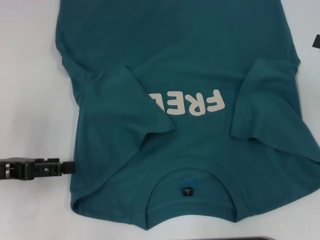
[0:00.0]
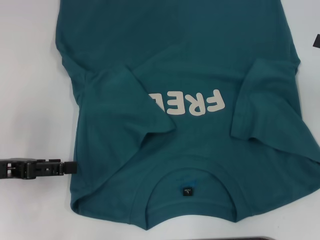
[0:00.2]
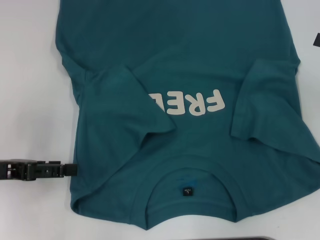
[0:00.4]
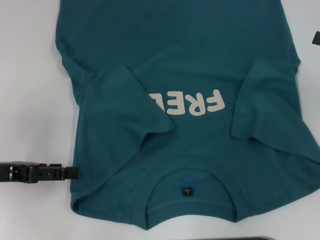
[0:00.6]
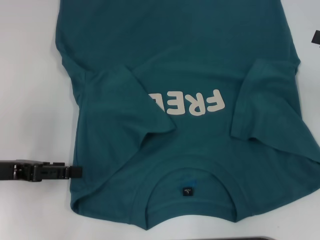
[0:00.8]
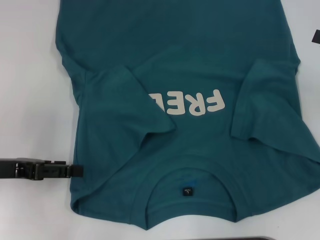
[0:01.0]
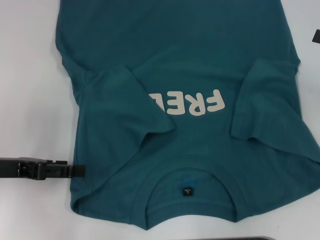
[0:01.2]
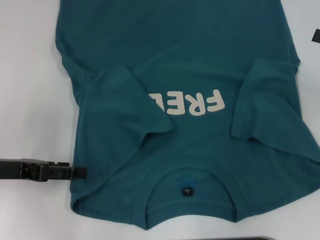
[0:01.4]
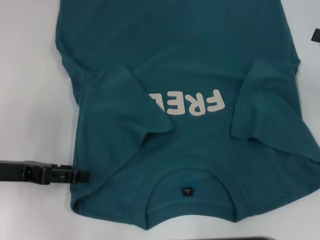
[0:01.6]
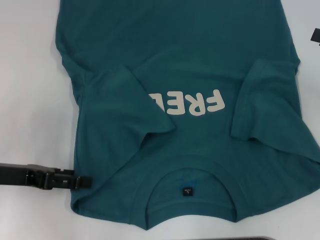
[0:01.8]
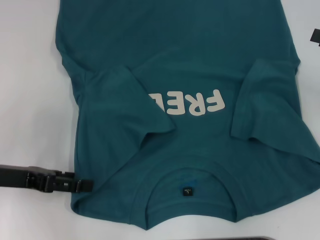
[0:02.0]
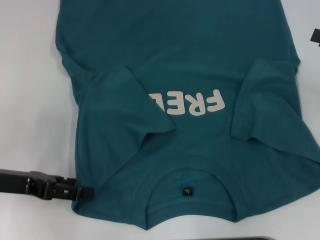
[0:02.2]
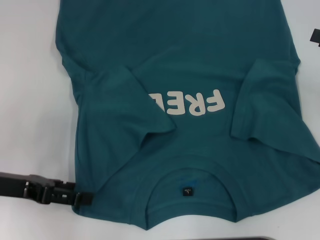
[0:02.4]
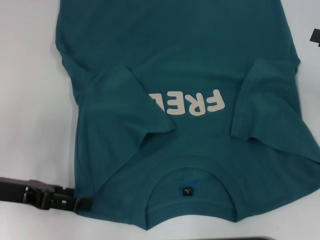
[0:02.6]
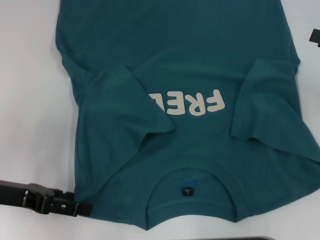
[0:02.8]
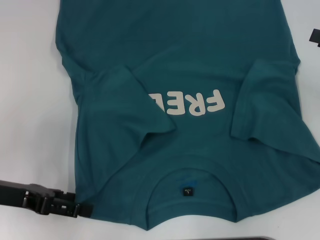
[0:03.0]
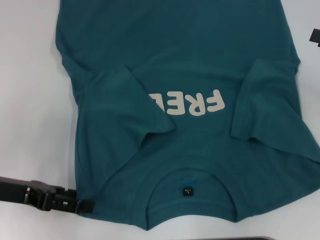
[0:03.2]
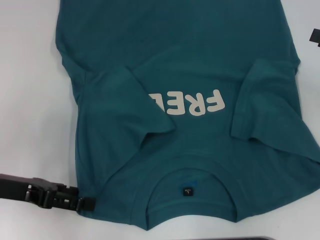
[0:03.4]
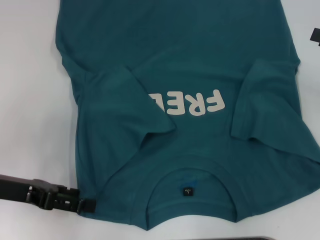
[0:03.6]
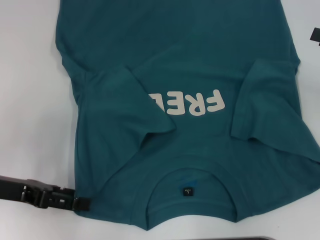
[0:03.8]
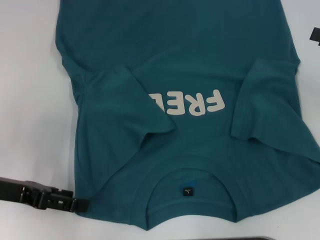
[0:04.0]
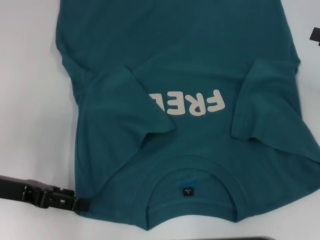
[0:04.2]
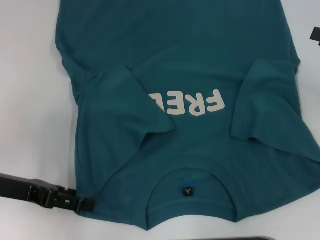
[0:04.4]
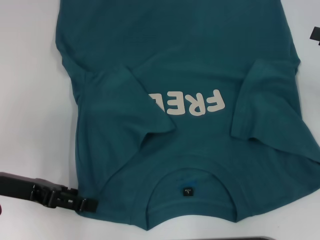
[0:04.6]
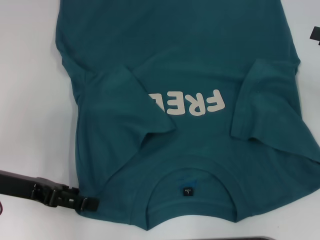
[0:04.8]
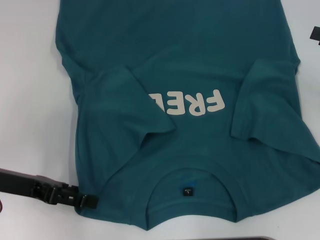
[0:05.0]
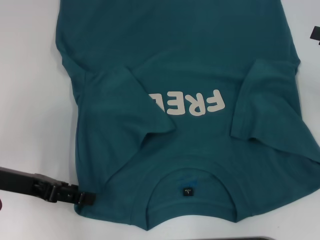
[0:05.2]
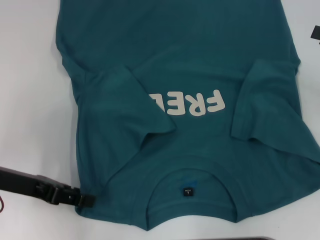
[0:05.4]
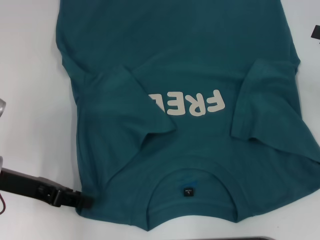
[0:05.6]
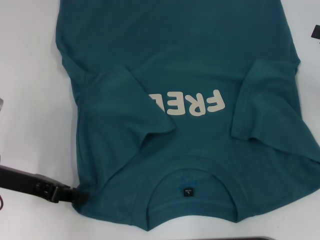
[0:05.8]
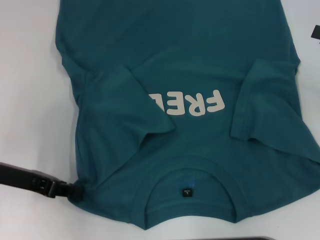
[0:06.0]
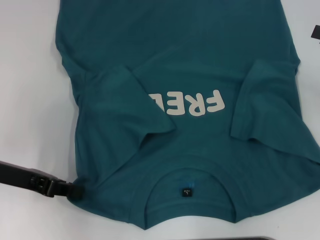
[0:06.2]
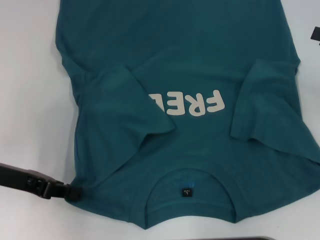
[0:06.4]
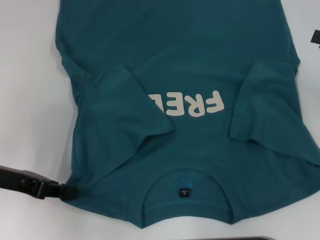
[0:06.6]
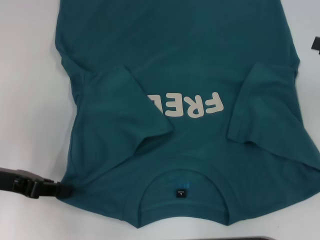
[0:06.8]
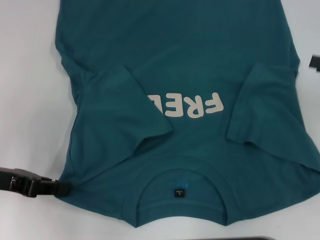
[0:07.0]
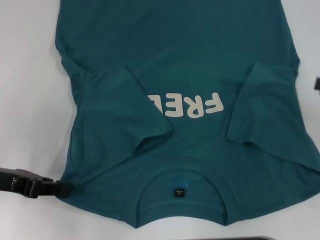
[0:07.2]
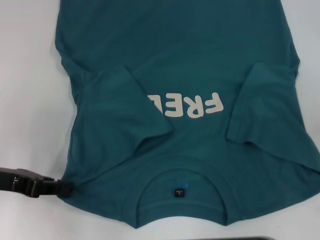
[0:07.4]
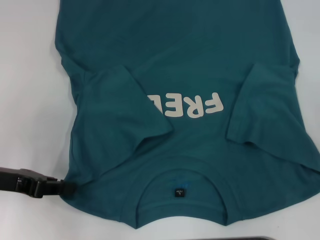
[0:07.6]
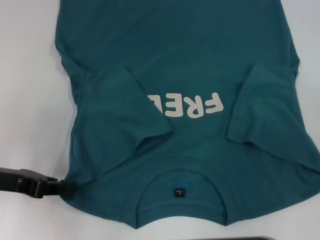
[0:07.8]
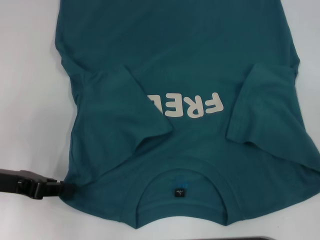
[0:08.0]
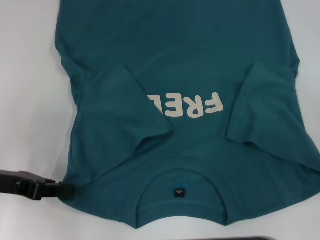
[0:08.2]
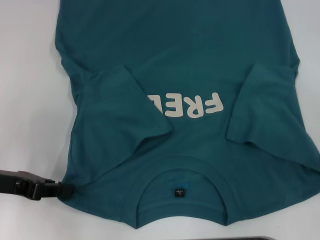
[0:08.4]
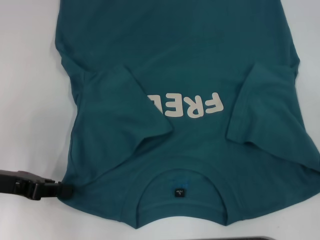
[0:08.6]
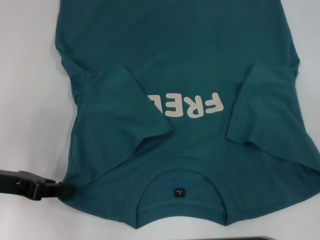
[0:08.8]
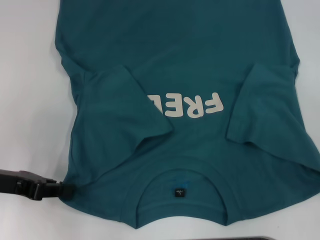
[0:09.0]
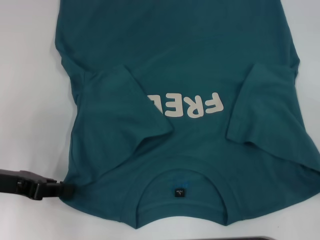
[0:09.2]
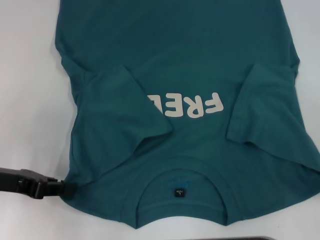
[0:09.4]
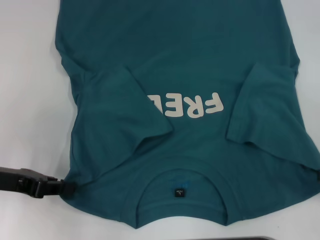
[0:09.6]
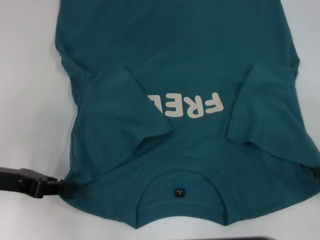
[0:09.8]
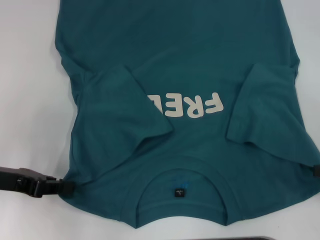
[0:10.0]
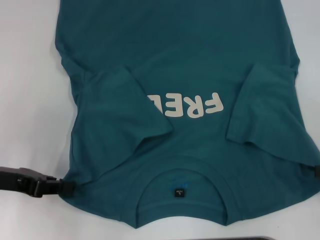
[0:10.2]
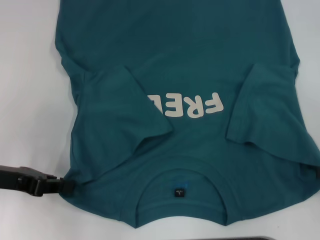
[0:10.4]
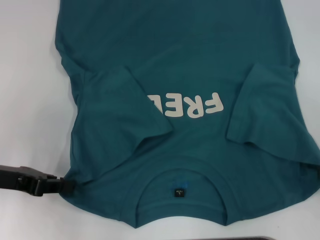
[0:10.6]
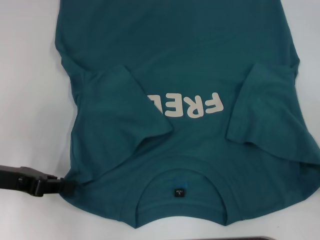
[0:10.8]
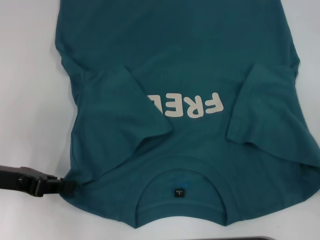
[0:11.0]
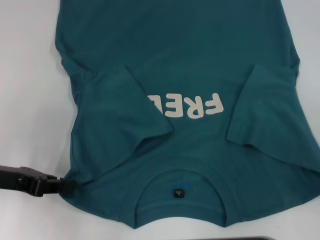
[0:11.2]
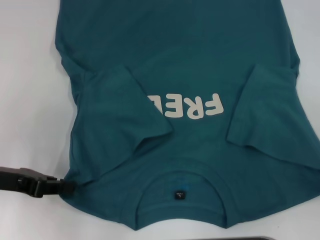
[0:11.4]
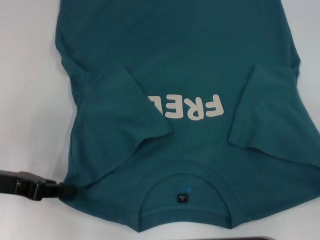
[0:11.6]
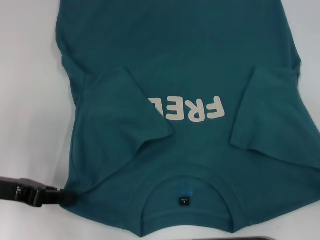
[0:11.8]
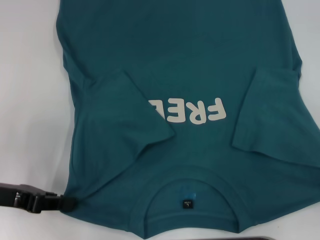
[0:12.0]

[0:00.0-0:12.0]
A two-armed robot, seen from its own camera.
Step, 0:00.0 to 0:05.6: Grab the bottom left corner with your left hand.
Step, 0:05.8 to 0:11.8: Grab the bottom right corner with your right hand.
0:00.0 to 0:03.0: There are only small adjustments of the grippers.
0:03.0 to 0:04.4: Both grippers stay about where they are.
0:04.4 to 0:06.0: The left gripper closes its fingers.
0:06.0 to 0:07.6: The right gripper shifts approximately 10 cm backward.
0:07.6 to 0:09.0: The grippers make only small movements.
0:09.0 to 0:10.4: Both grippers stay put.
0:10.4 to 0:12.0: The right gripper closes.

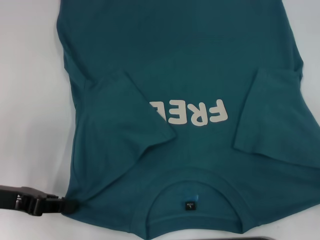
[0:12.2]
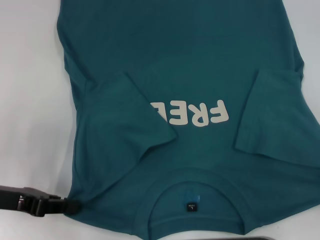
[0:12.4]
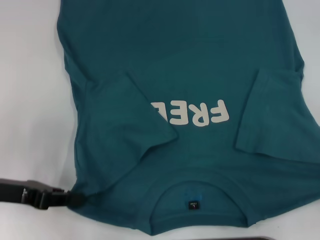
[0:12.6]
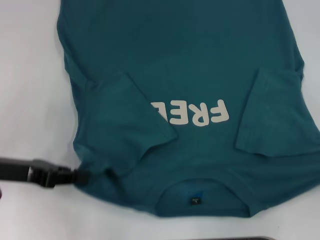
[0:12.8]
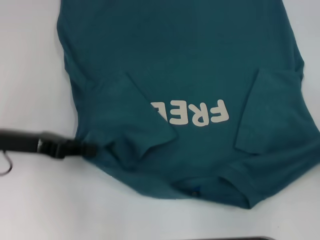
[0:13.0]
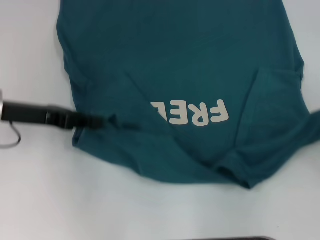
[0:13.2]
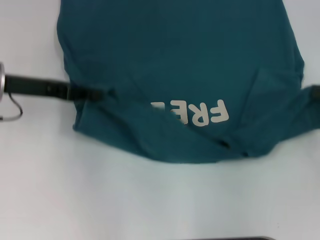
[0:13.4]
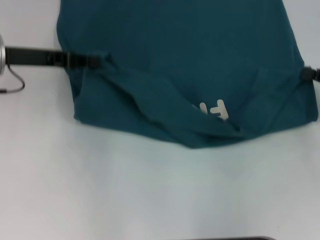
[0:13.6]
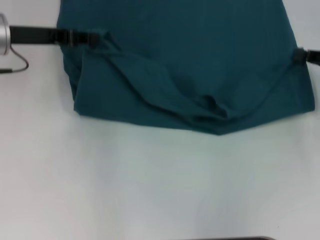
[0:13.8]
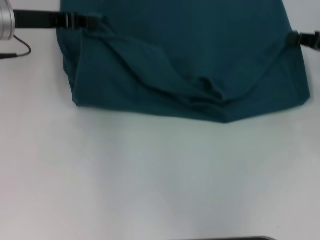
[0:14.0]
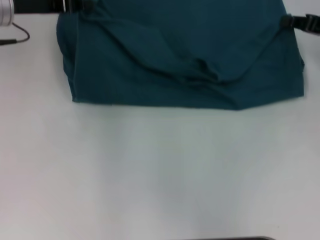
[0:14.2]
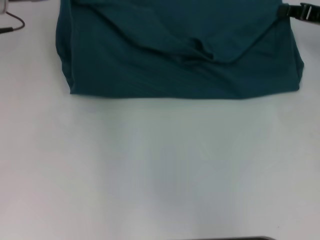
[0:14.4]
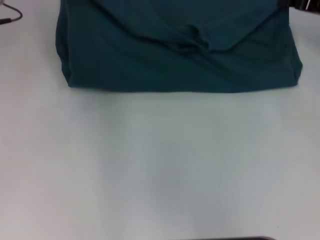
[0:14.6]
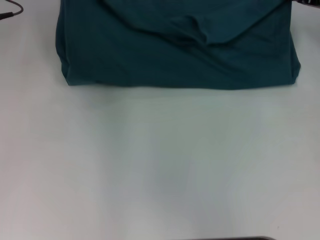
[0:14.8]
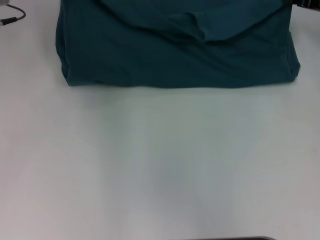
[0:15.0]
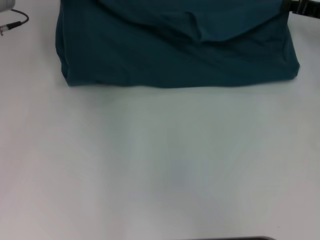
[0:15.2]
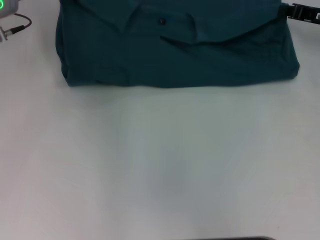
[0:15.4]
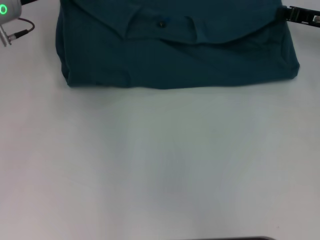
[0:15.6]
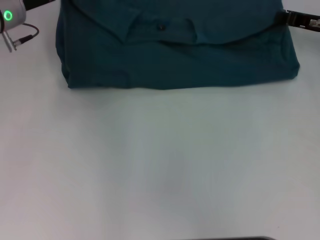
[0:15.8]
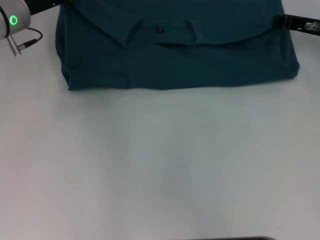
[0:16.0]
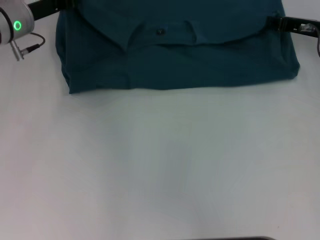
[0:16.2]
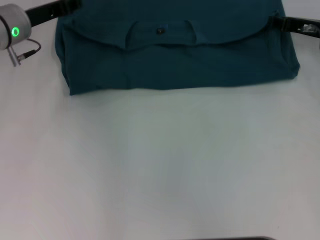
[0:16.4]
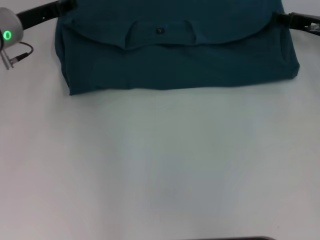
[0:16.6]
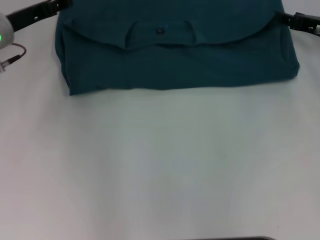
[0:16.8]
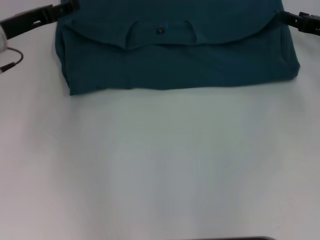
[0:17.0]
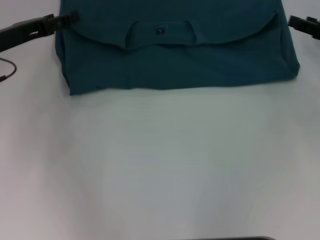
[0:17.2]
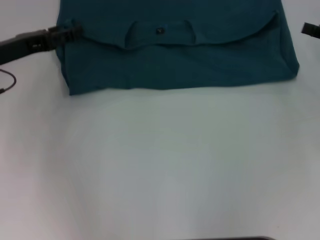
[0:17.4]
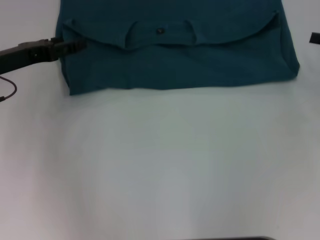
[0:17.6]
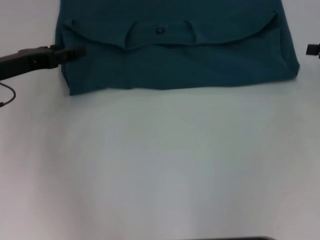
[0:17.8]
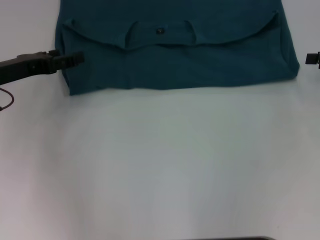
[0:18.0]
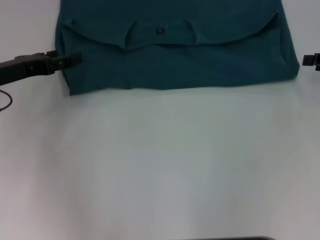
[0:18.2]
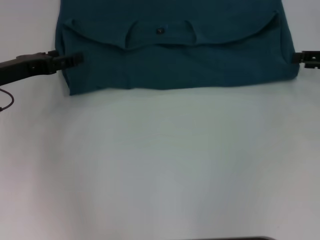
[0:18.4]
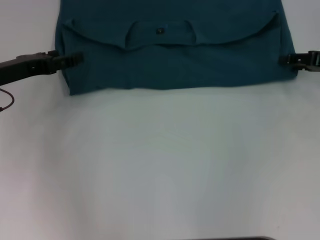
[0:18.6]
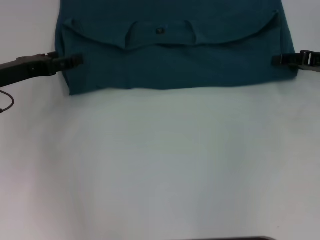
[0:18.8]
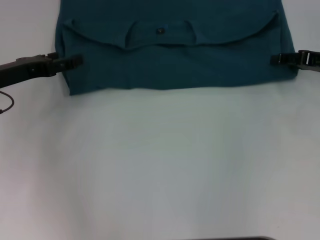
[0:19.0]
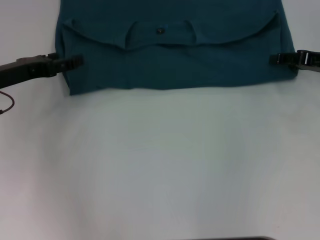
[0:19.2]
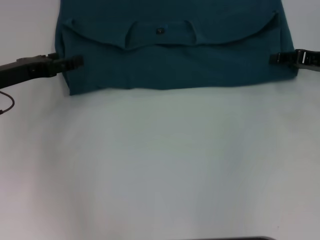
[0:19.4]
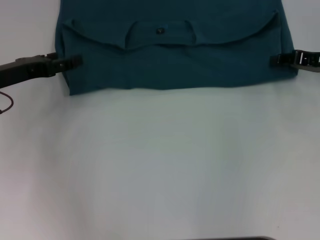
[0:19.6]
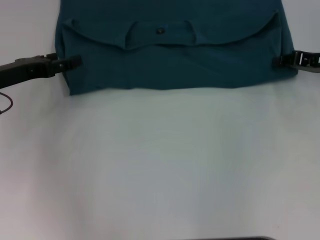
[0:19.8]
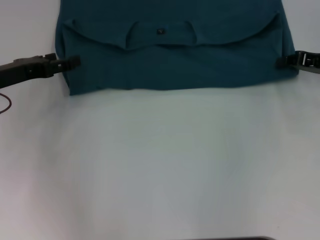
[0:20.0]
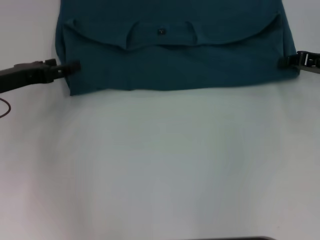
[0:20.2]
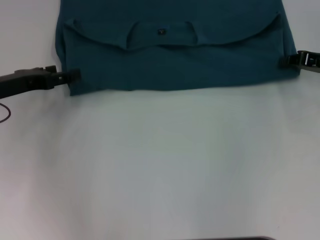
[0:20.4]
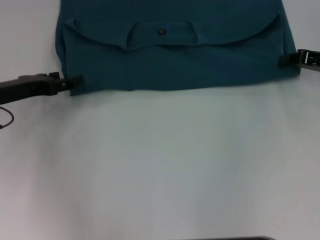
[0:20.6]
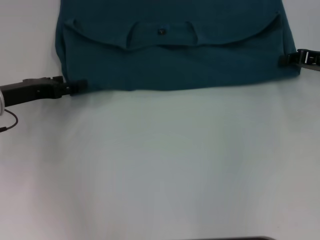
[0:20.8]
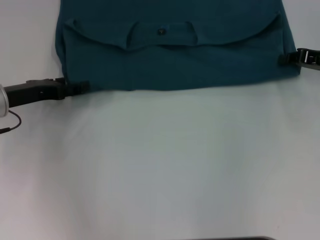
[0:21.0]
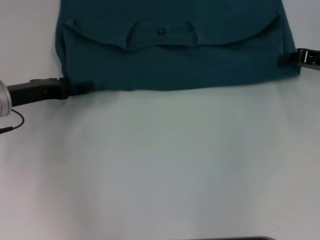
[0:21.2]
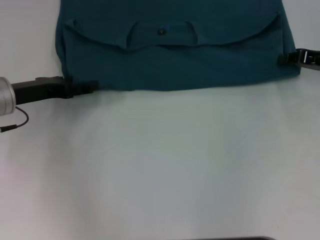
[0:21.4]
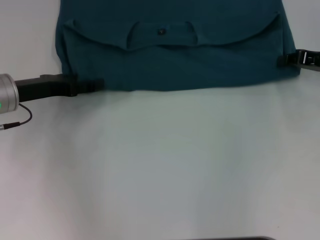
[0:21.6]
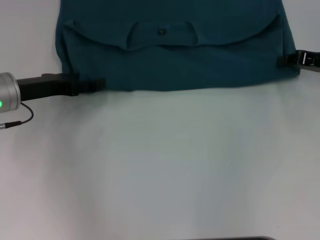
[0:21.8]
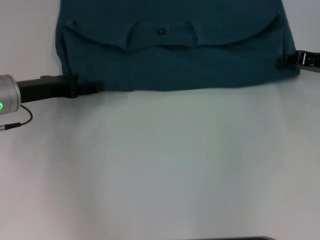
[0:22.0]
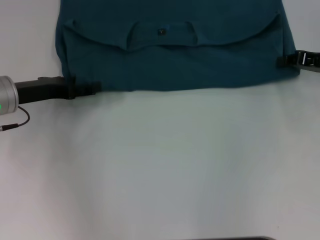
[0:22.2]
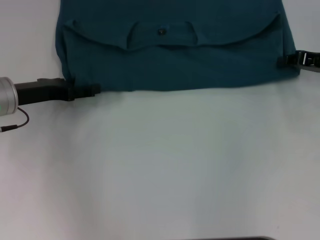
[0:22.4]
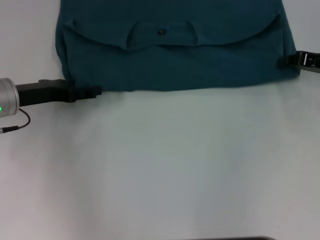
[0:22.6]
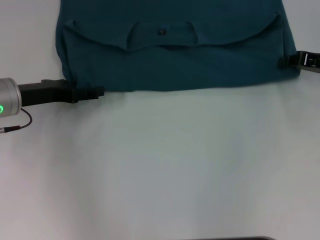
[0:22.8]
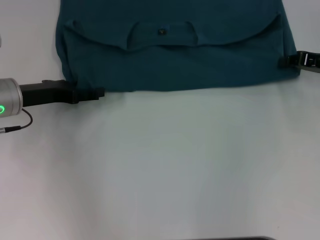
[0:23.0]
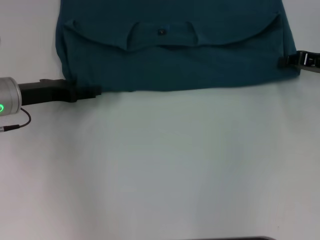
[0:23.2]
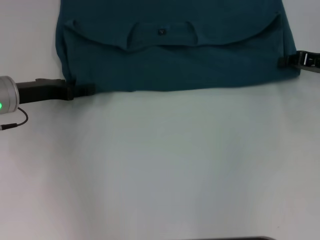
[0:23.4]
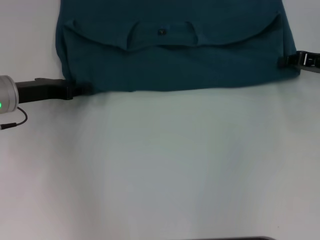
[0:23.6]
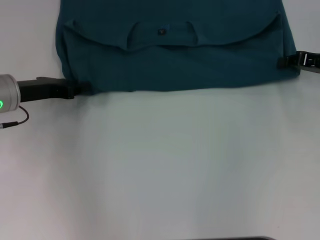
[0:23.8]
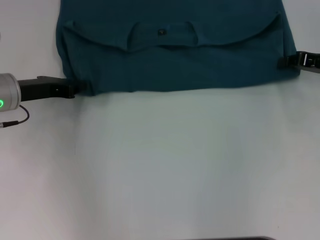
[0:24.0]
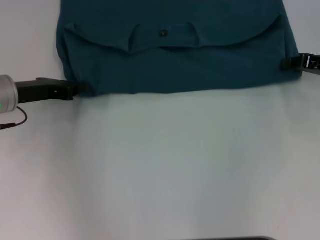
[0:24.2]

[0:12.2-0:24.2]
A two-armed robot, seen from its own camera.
Step, 0:12.2 to 0:16.8: Fold the clothes to the left.
Step, 0:12.2 to 0:16.8: Fold the clothes to the right.
0:12.2 to 0:13.8: The right gripper goes roughly 20 cm forward; the left gripper shifts some 20 cm forward and upward.
0:13.8 to 0:15.2: The left gripper heads forward, covering roughly 5 cm; the right gripper goes roughly 10 cm forward.
0:15.2 to 0:16.6: The right gripper opens up, while the left gripper moves approximately 5 cm.
0:16.6 to 0:18.2: The right gripper travels to the right and backward by roughly 10 cm, while the left gripper is displaced backward by about 10 cm, and opens.
0:18.2 to 0:19.8: The right gripper heads to the left, covering about 5 cm.
0:19.8 to 0:21.2: The right gripper closes its fingers.
0:21.2 to 0:22.6: The grippers make only small movements.
0:22.6 to 0:24.2: The left gripper closes its fingers.
